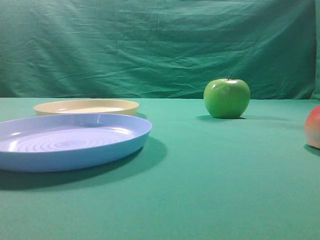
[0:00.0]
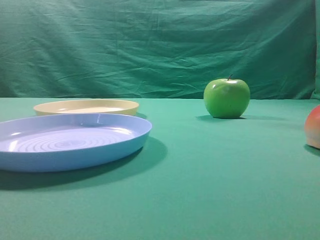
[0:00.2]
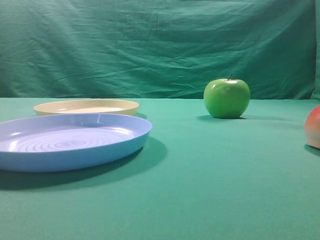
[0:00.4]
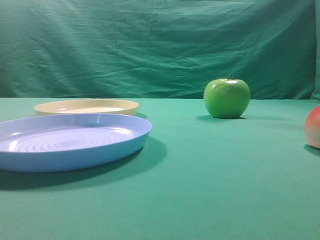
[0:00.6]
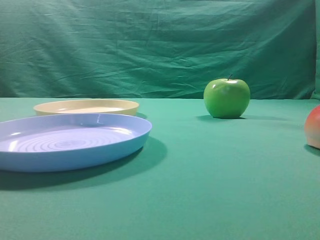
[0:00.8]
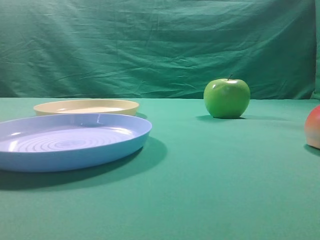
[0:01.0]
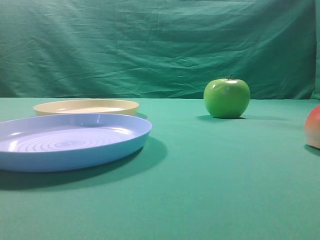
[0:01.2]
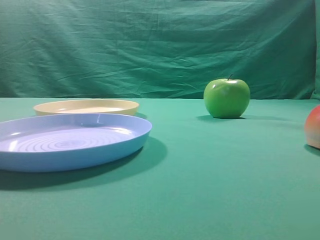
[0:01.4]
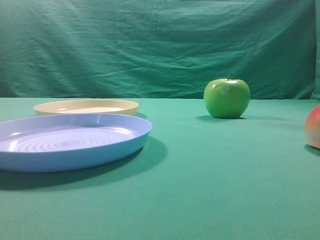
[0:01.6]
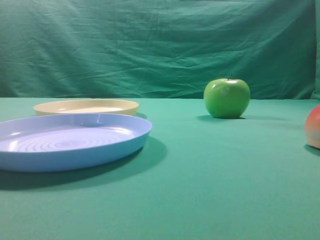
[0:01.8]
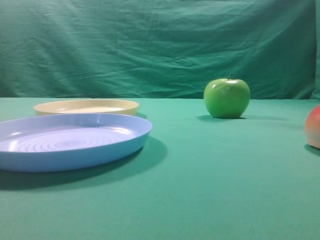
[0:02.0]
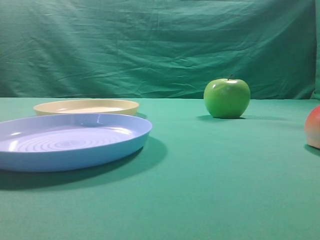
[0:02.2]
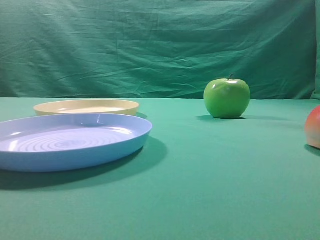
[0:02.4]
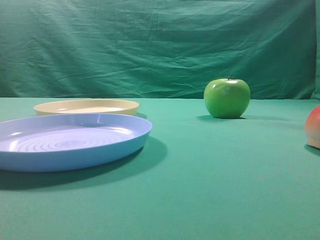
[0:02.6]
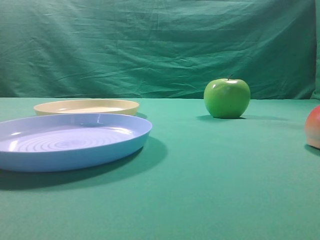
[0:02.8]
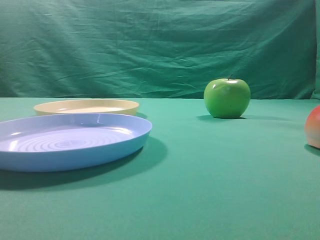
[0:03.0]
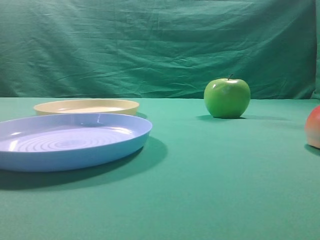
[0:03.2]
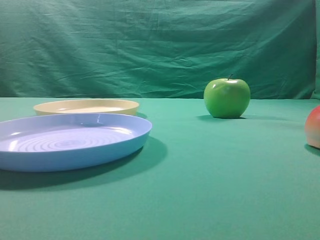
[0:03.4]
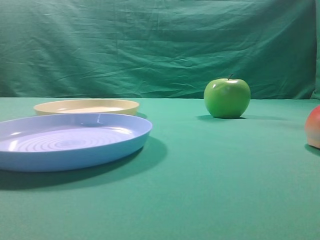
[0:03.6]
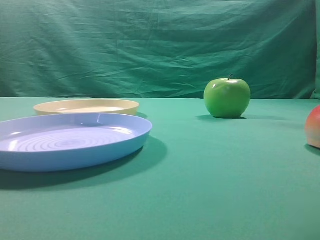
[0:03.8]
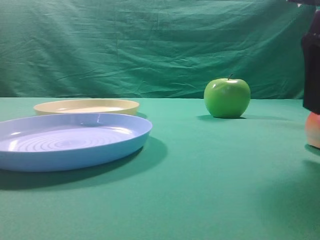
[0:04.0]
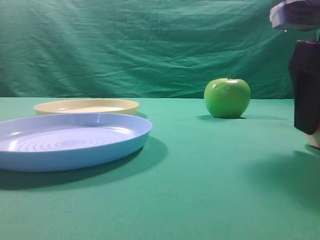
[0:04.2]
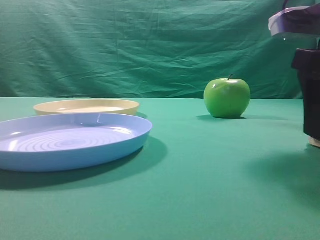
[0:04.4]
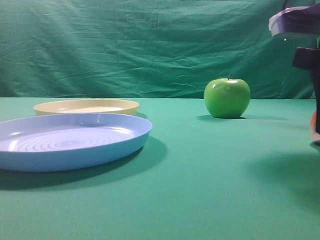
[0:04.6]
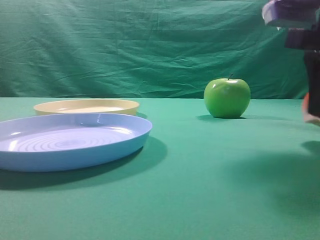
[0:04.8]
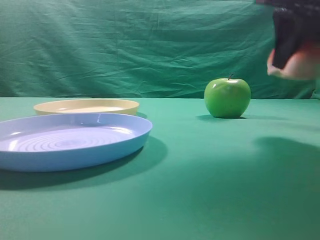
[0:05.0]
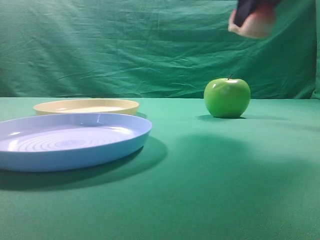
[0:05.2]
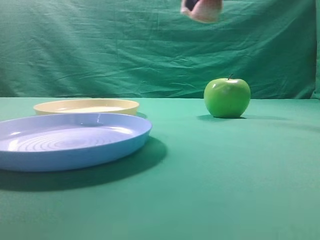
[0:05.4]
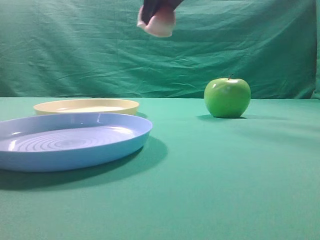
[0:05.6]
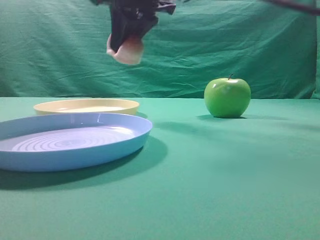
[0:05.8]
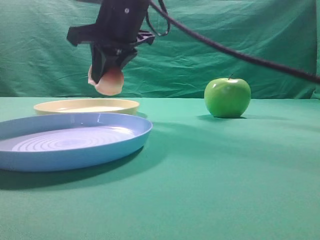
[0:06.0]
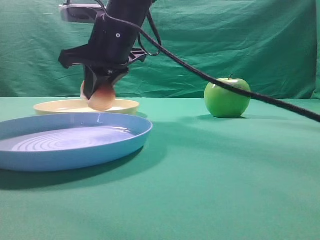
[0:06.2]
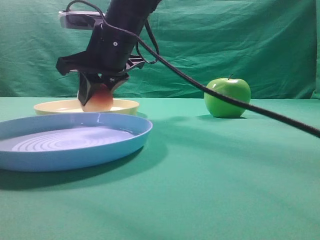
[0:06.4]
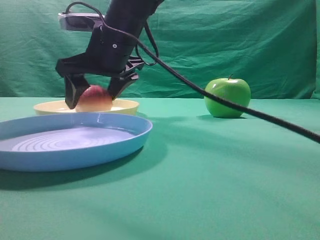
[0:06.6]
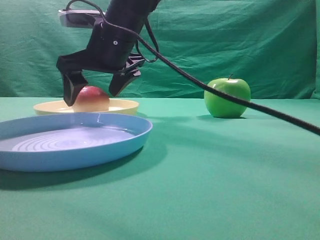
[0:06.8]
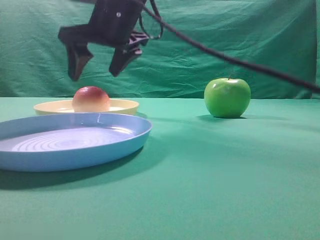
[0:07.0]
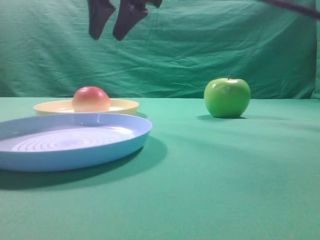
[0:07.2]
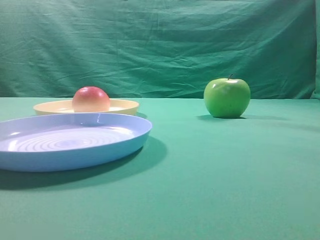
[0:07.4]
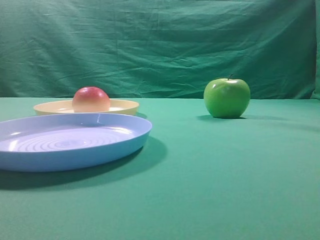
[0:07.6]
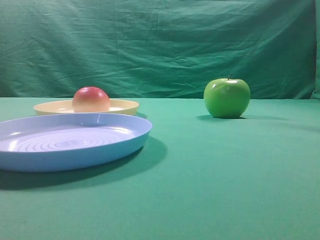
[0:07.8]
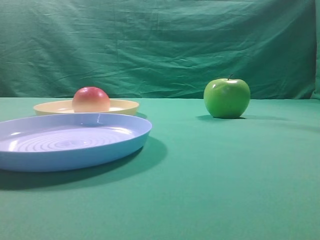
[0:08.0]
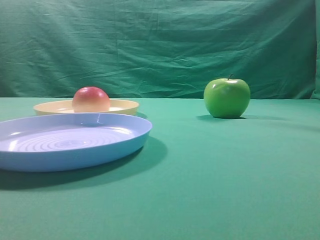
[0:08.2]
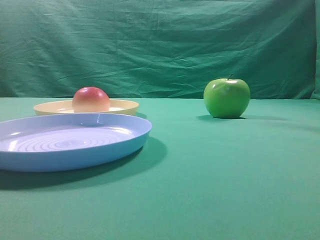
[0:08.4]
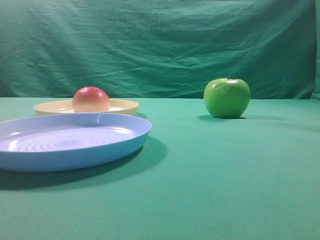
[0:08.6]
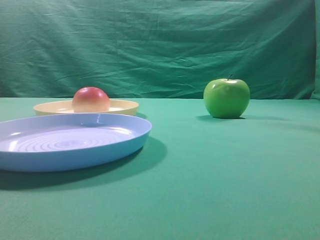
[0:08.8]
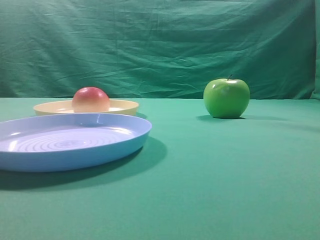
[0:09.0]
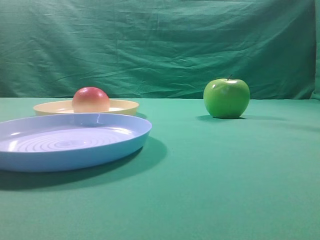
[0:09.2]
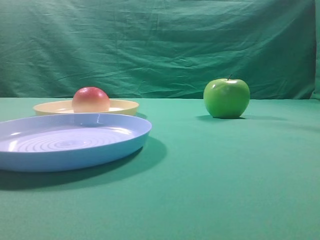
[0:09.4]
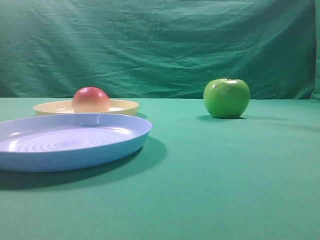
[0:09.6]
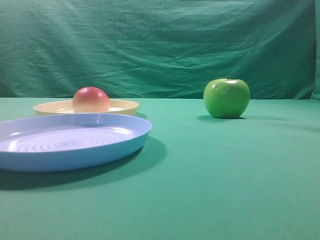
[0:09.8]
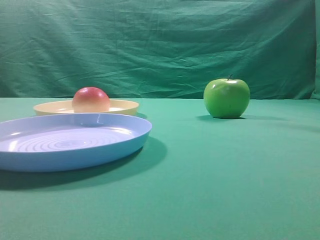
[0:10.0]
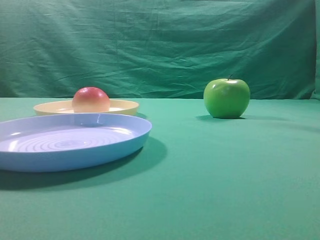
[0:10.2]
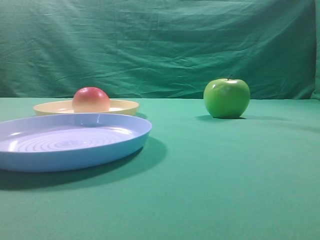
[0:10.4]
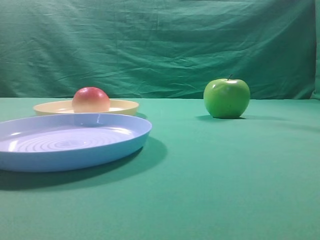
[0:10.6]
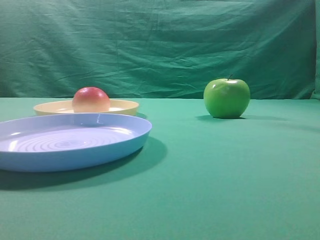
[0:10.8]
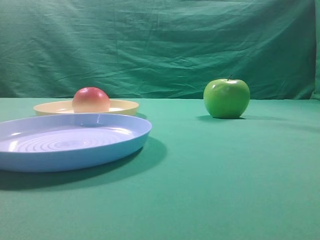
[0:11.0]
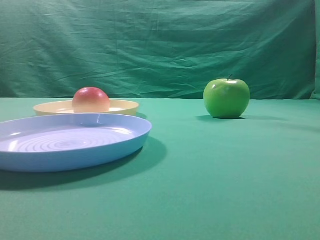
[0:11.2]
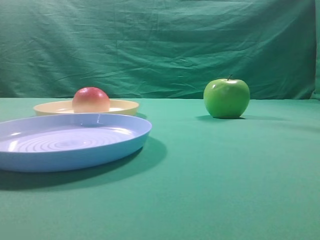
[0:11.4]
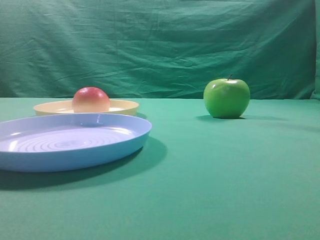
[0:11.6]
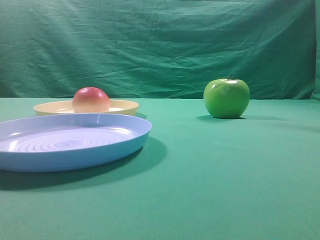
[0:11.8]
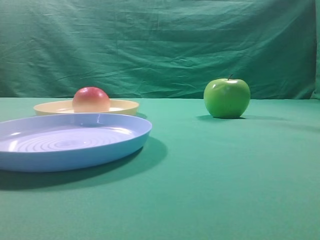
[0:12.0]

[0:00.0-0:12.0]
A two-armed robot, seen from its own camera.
Step, 0:05.0 to 0:07.0: Place the picked object on the yellow plate.

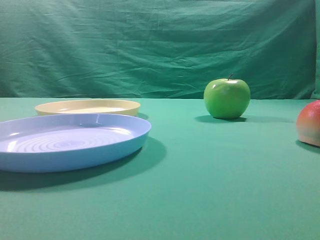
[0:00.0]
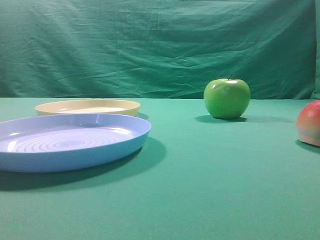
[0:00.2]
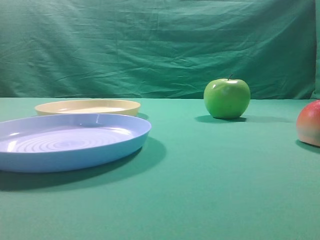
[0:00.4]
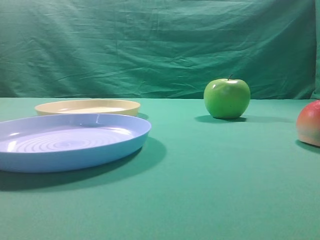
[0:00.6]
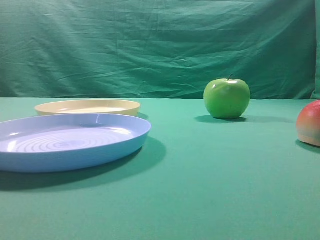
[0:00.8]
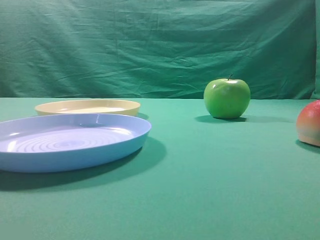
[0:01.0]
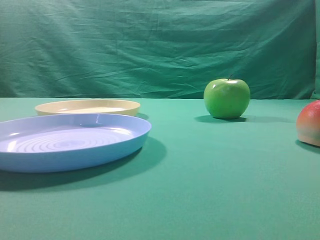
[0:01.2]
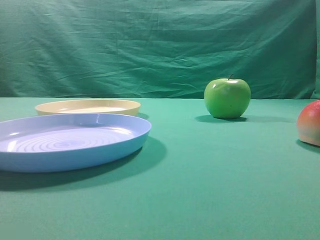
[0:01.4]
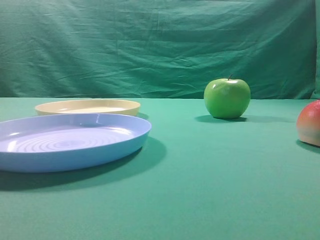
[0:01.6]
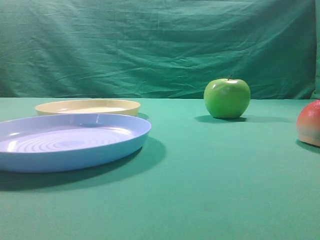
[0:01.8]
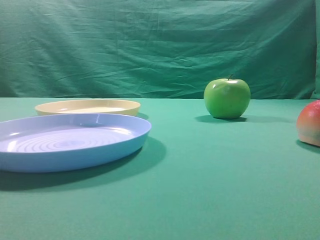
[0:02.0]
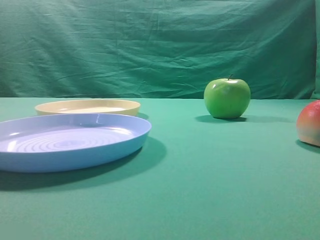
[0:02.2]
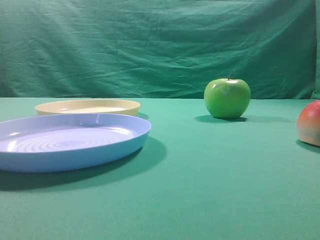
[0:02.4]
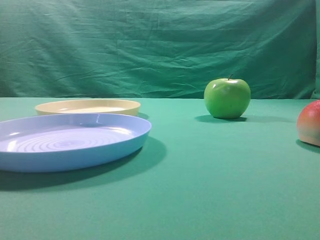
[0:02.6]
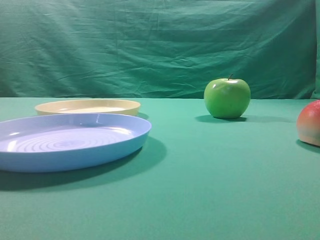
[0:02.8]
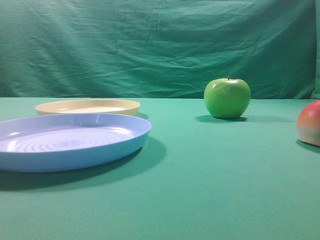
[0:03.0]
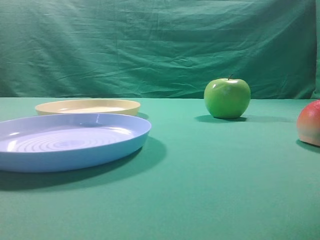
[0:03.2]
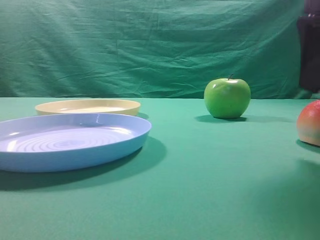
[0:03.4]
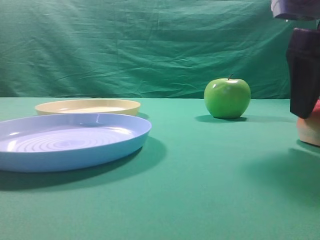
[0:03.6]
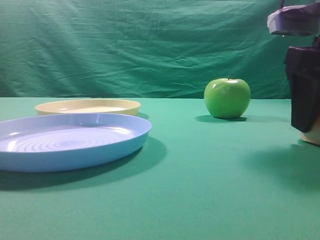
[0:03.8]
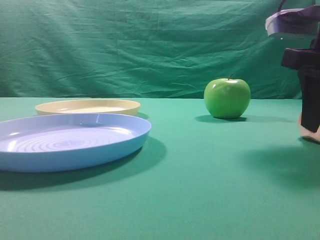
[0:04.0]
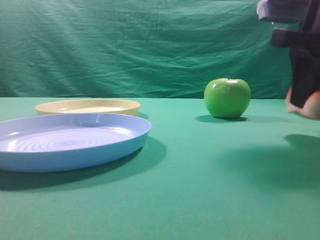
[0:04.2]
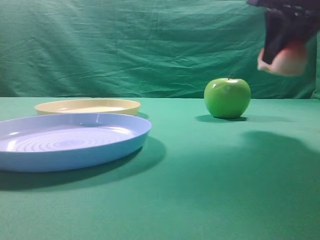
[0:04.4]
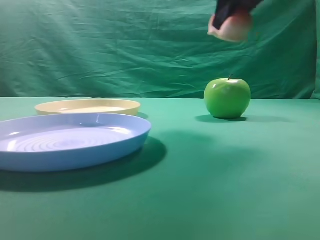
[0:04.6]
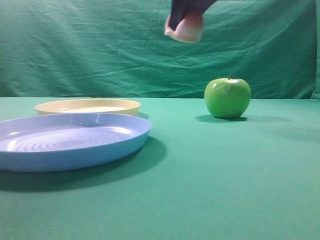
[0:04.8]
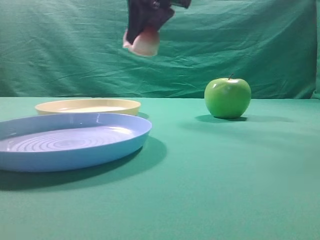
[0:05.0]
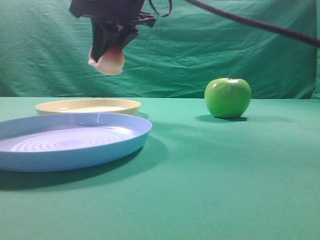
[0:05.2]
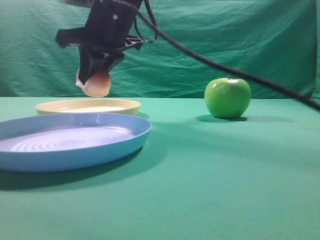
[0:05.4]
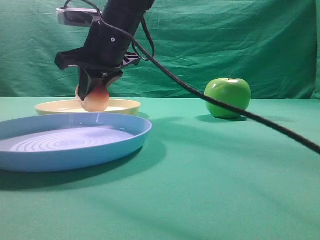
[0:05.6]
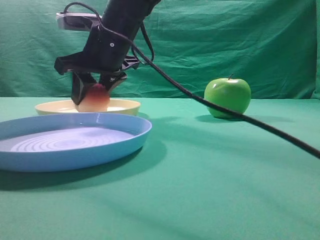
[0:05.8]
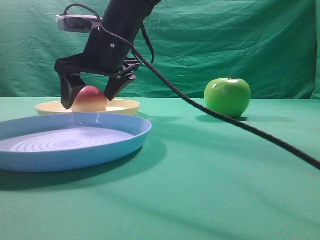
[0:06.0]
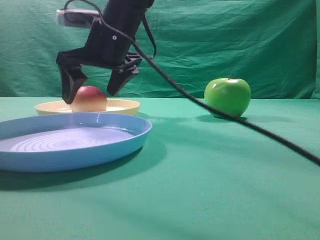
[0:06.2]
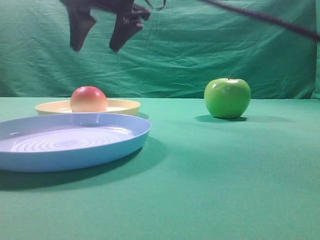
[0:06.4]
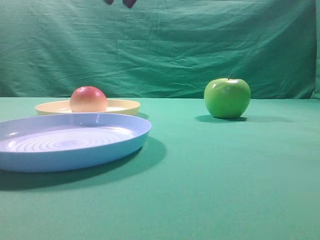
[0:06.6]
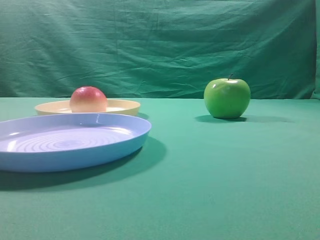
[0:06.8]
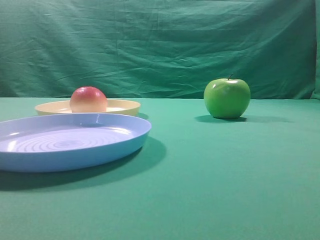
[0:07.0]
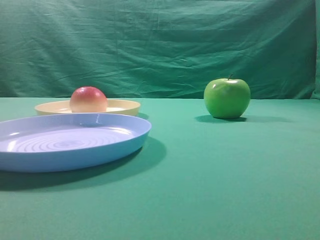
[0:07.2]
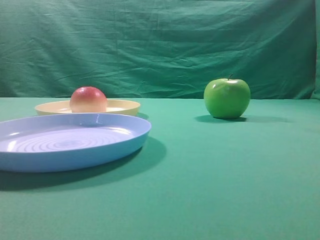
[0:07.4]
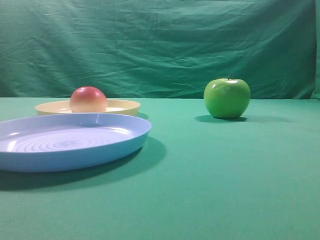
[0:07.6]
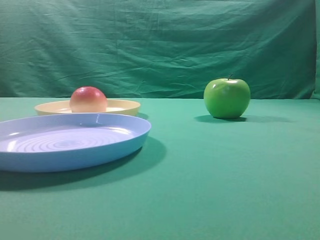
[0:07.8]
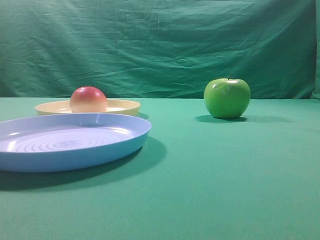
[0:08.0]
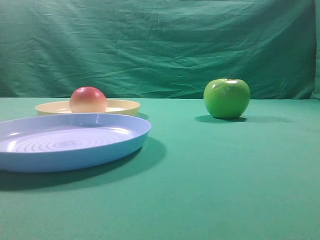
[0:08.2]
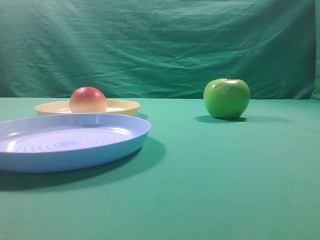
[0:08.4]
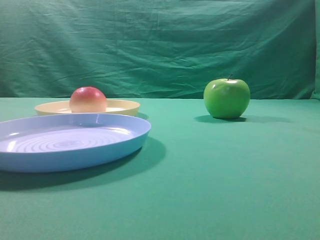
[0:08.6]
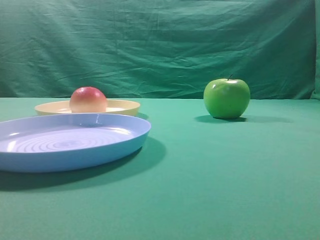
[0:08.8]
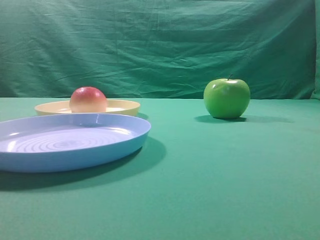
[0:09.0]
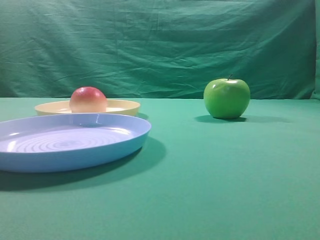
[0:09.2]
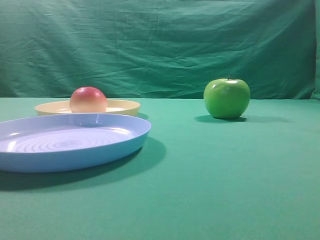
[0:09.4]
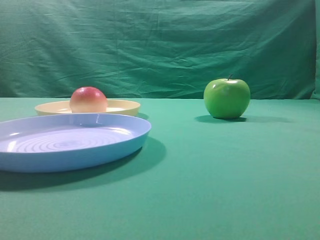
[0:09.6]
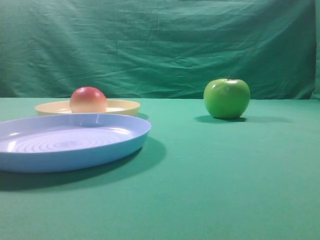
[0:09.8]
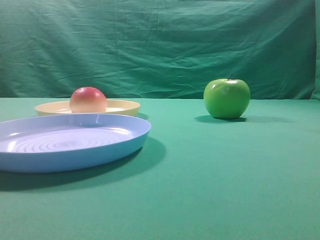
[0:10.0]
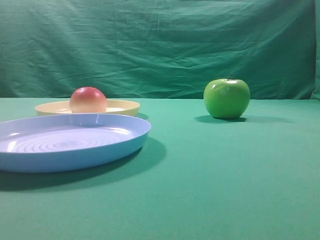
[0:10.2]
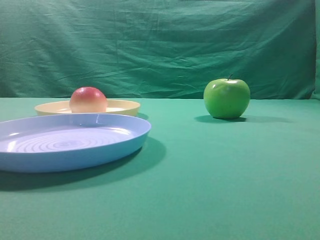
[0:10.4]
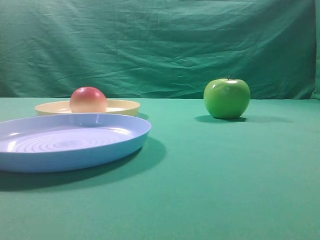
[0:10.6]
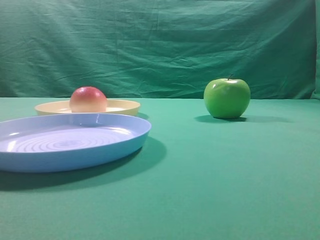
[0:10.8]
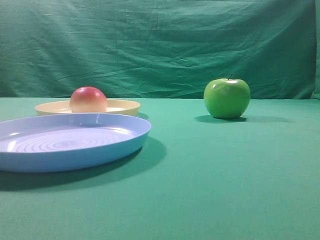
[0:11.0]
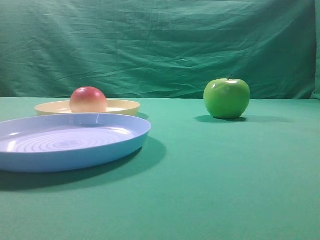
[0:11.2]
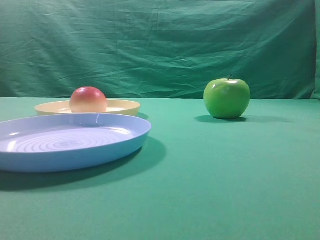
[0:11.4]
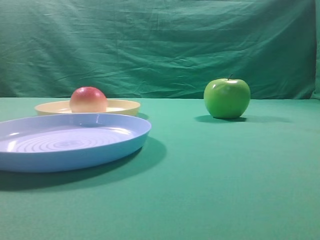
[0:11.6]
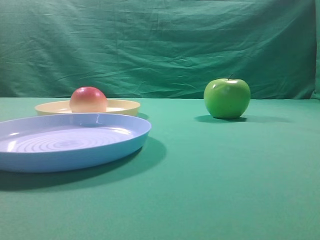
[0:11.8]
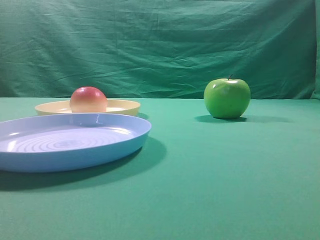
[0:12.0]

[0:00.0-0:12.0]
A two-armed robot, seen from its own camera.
Step, 0:04.4 to 0:06.2: Place the picked object on the yellow plate.
